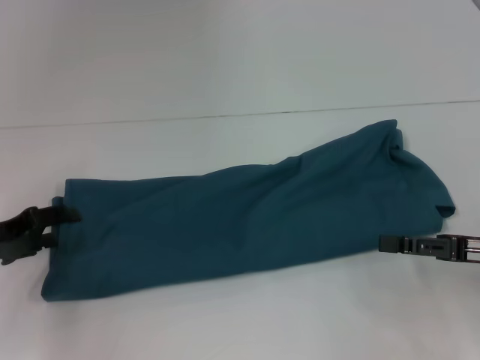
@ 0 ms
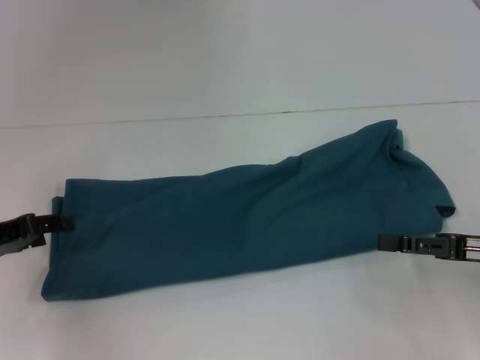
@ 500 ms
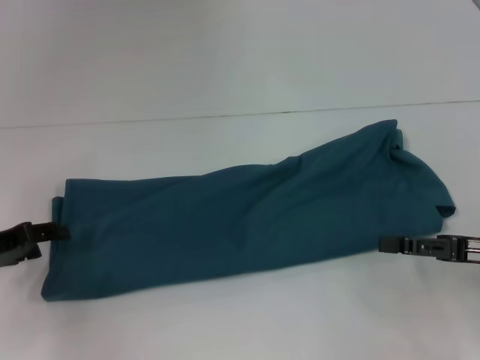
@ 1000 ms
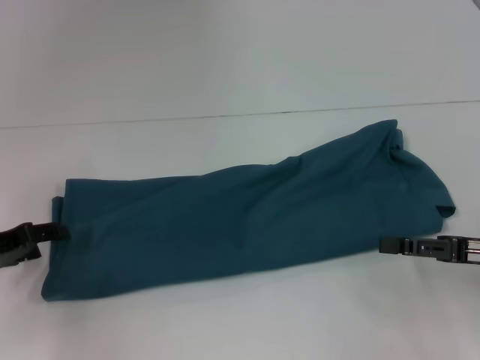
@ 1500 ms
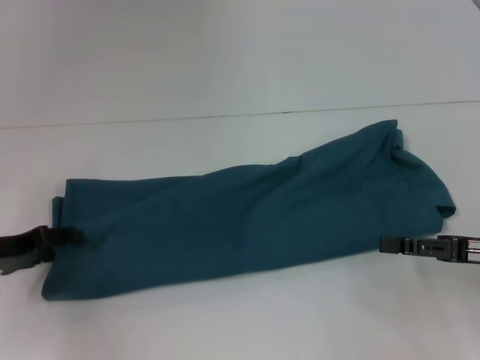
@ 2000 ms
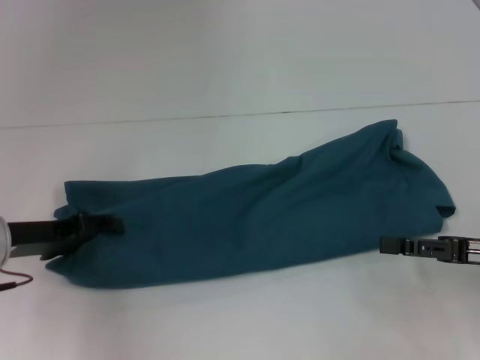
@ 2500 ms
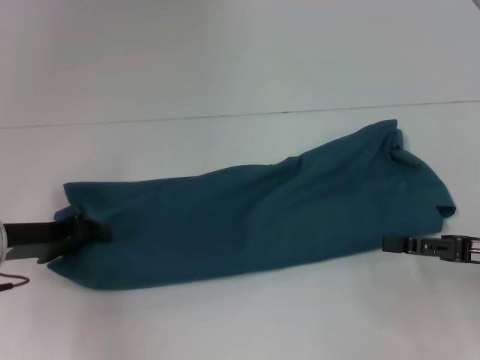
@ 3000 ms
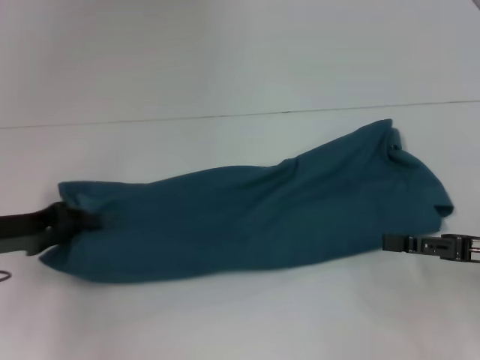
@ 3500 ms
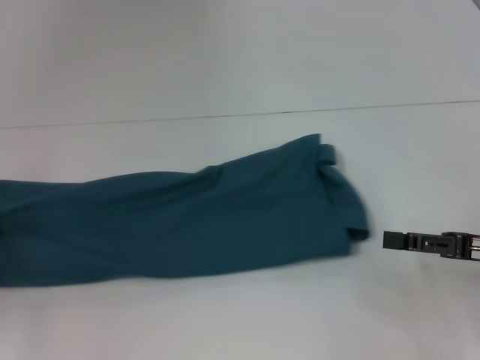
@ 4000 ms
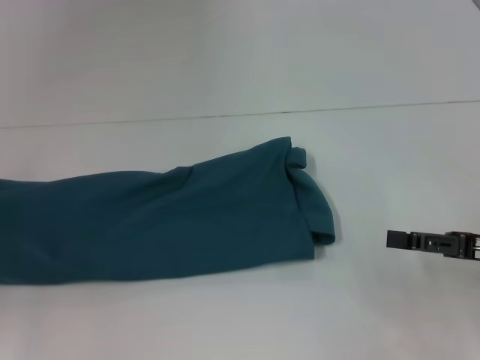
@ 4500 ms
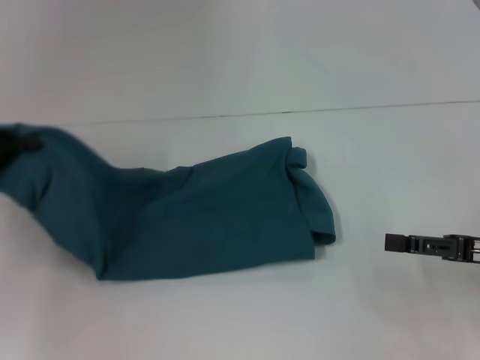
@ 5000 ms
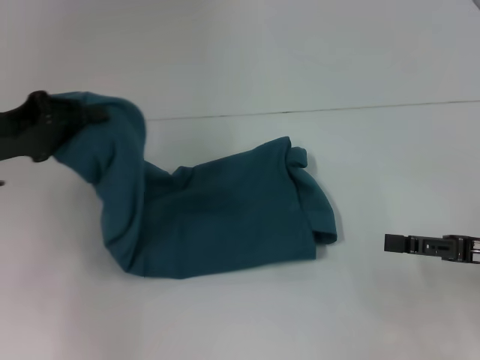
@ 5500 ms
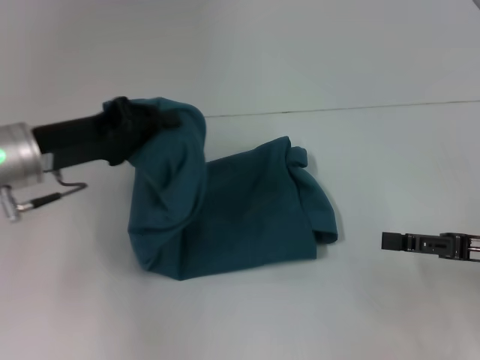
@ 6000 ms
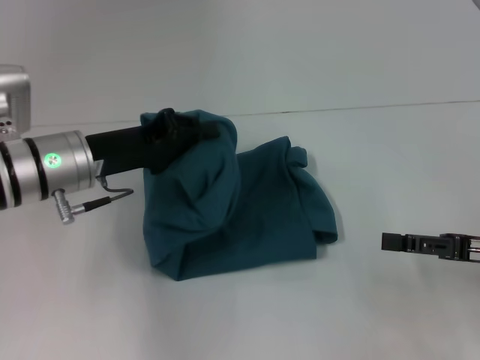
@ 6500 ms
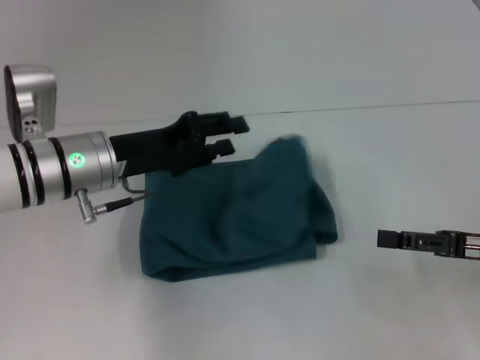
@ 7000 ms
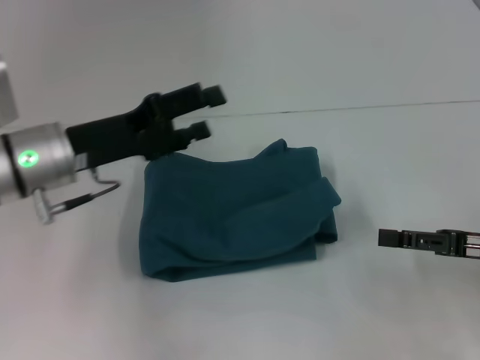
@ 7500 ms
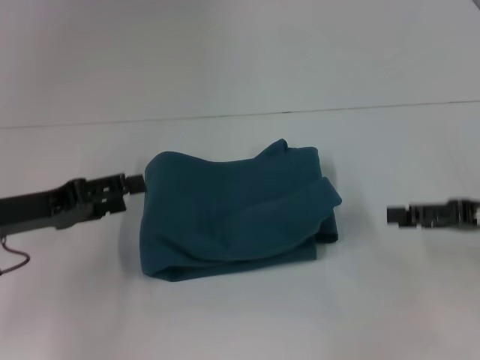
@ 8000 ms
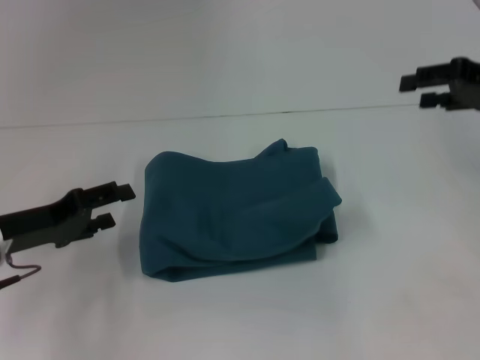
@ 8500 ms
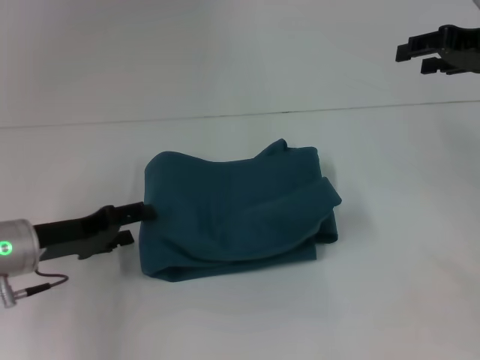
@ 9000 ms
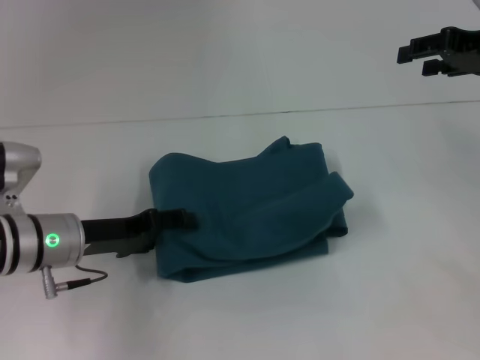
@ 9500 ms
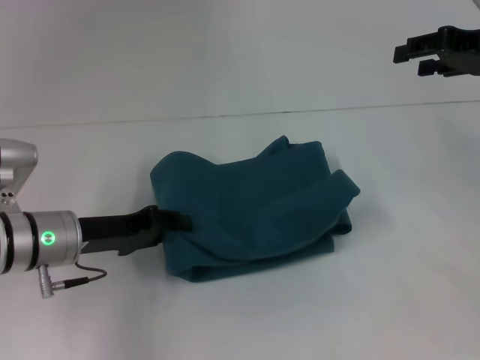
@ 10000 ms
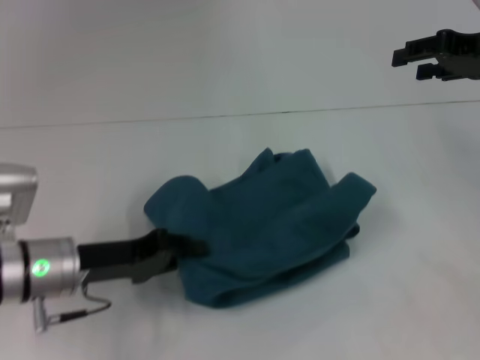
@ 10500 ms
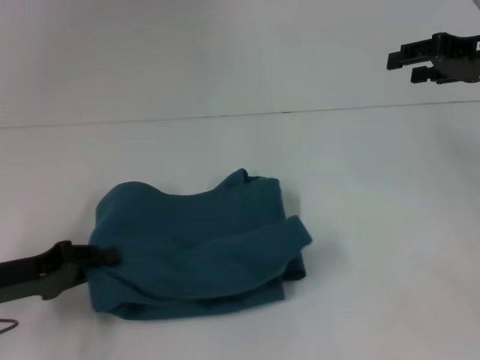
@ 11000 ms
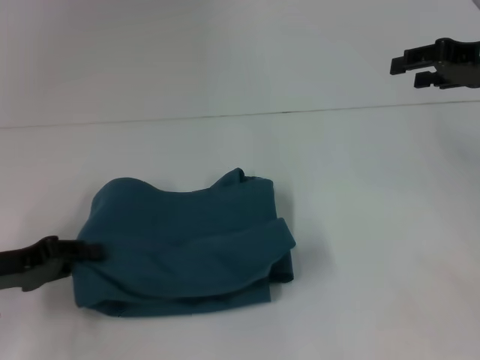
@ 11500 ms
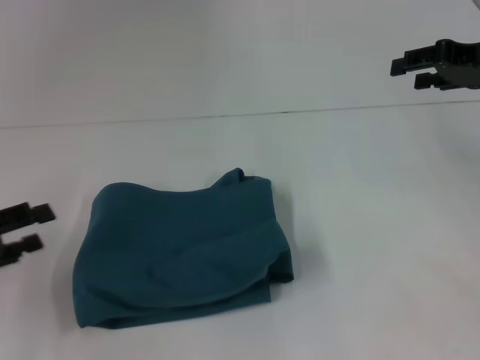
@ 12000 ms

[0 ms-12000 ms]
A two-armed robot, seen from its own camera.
Step, 0 ms to 7000 ms: Fold the clothes to the left.
0 ms to 2000 ms: There are only small adjustments of the grippers.
2000 ms to 4000 ms: The left gripper moves to the left, approximately 5 cm, and closes.
4000 ms to 6000 ms: The left gripper is displaced to the right and upward by approximately 15 cm.
6000 ms to 8000 ms: The left gripper goes approximately 5 cm to the left, and opens up; the right gripper changes place by approximately 5 cm.
8000 ms to 10000 ms: The left gripper goes approximately 5 cm to the right. The right gripper travels forward and upward by some 15 cm.
10000 ms to 12000 ms: The left gripper is displaced to the left and backward by some 15 cm, and closes and opens again.

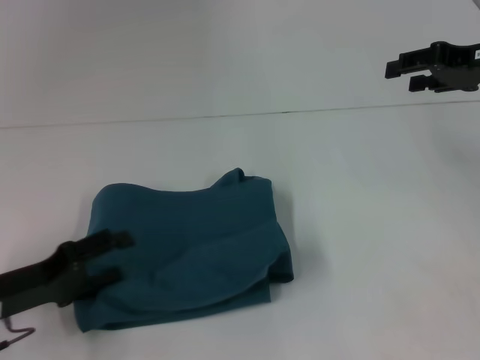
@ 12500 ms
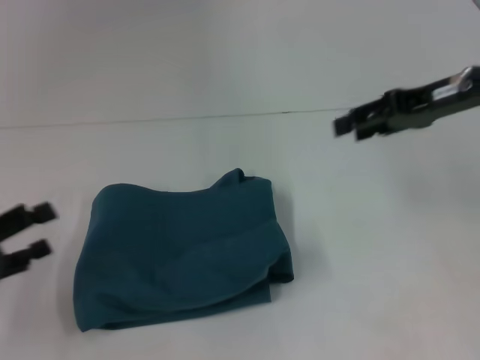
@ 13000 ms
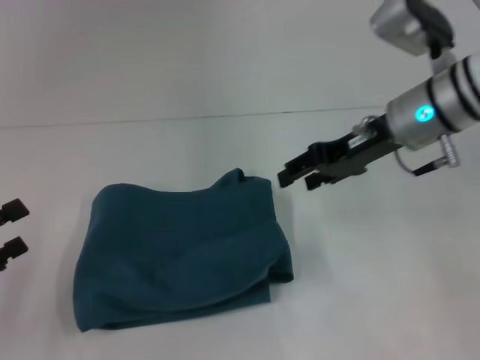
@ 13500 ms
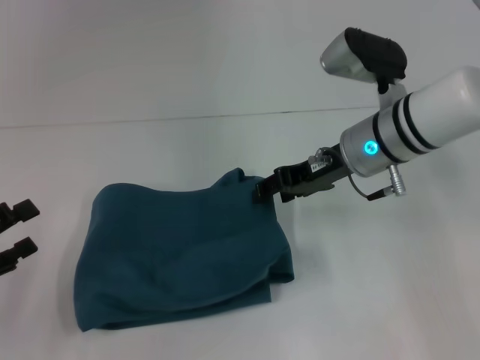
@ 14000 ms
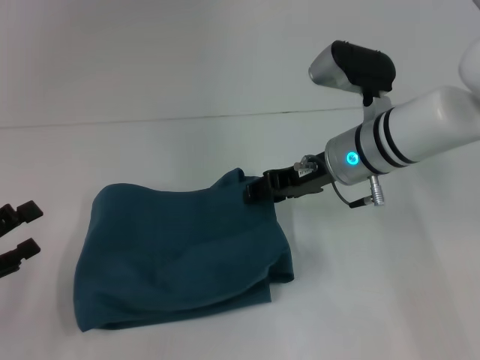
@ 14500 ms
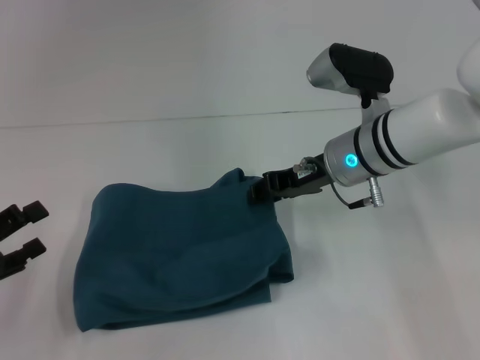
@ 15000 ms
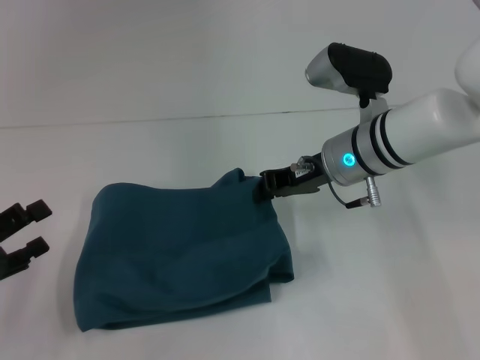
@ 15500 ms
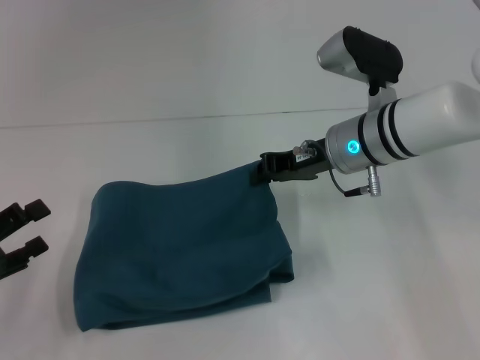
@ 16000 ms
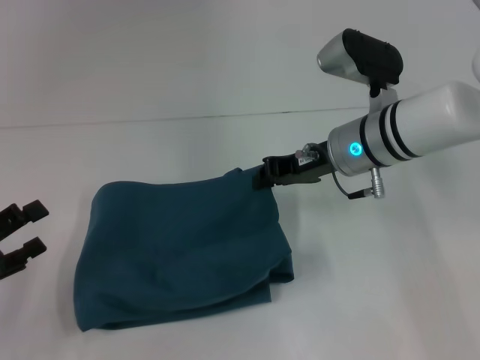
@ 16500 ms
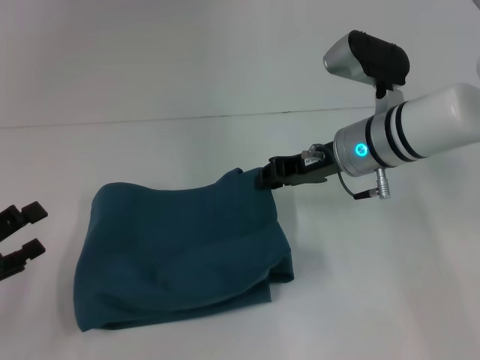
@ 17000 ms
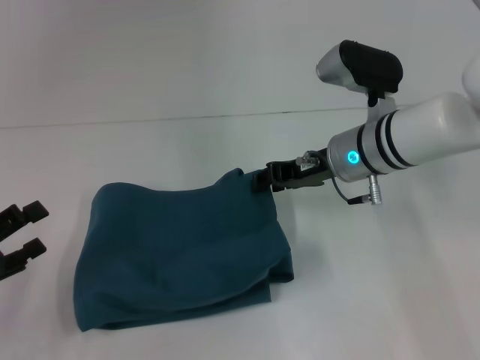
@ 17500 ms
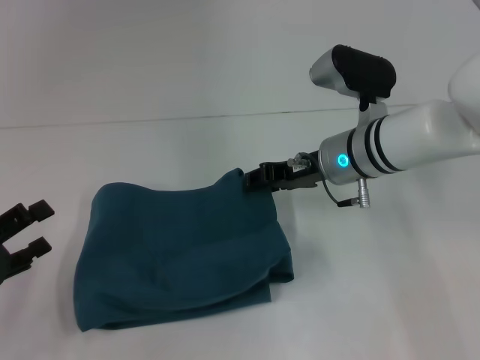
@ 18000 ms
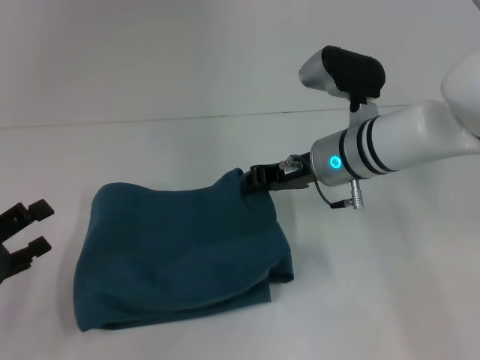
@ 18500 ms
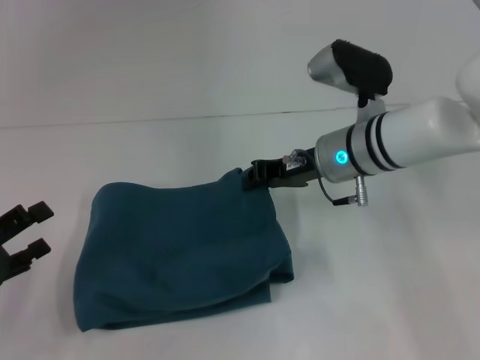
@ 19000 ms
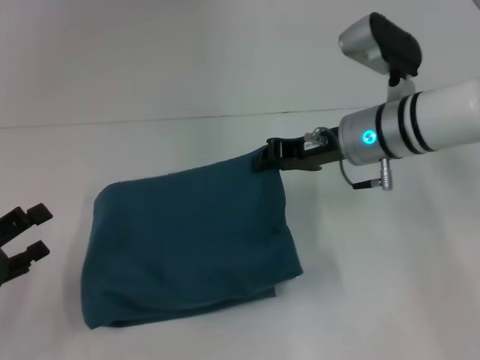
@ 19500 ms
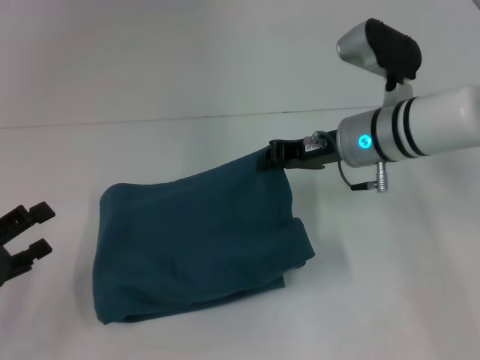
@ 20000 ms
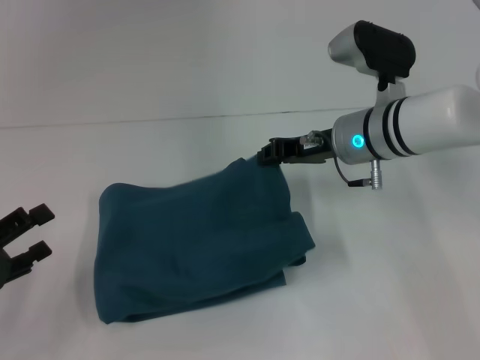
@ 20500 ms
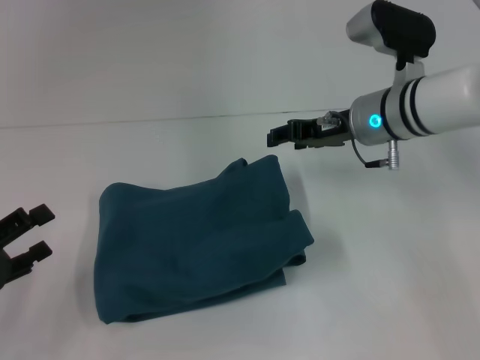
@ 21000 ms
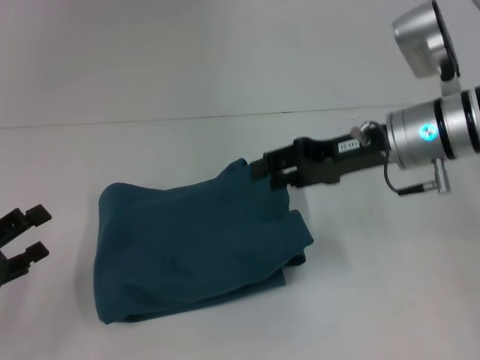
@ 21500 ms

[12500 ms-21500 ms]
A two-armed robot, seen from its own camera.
12500 ms to 14500 ms: The left gripper is displaced to the left by about 5 cm. The right gripper moves to the left and downward, approximately 20 cm.
14500 ms to 19500 ms: The grippers stay close to where they were, moving slightly.
19500 ms to 21500 ms: The right gripper opens its fingers.

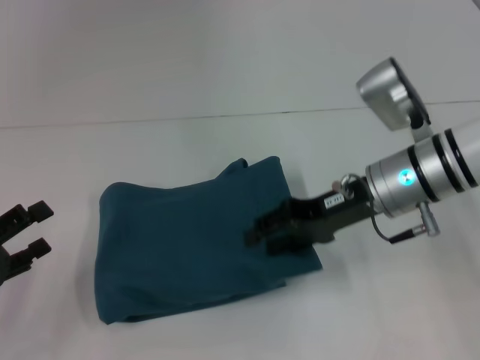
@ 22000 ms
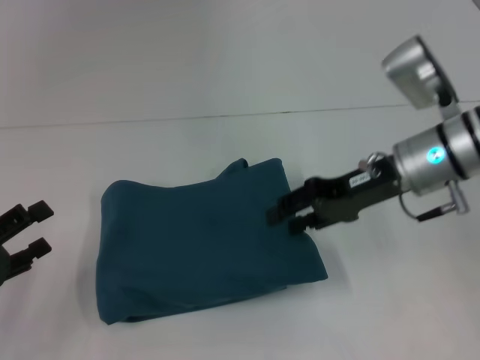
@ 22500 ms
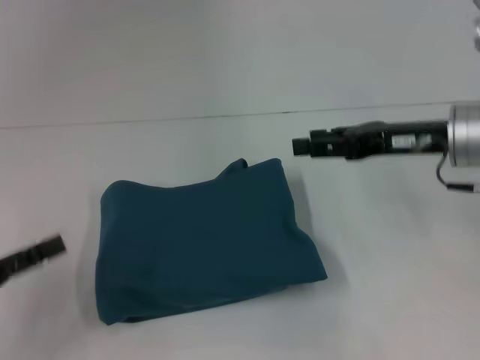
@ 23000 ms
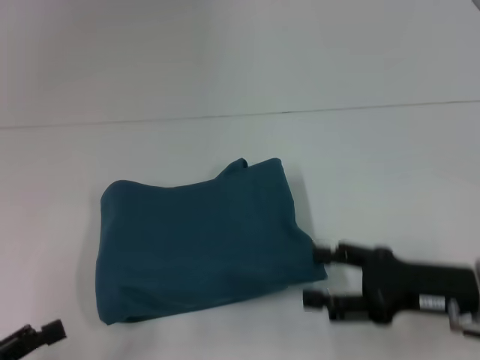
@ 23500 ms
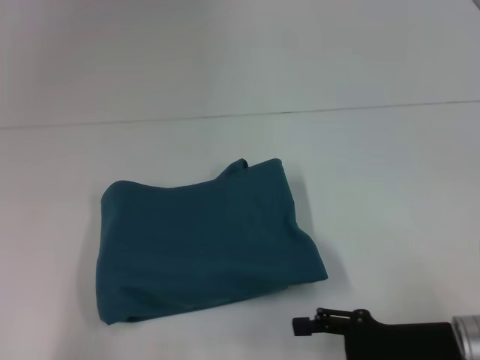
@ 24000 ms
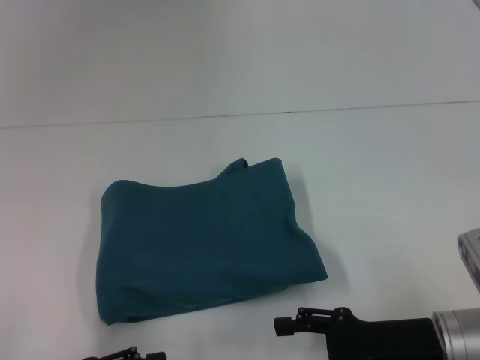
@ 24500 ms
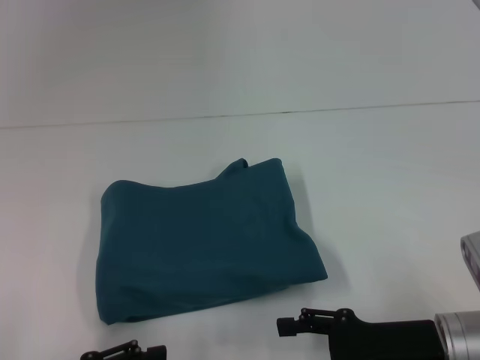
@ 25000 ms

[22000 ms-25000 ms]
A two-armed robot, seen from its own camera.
22000 ms to 23500 ms: The left gripper travels backward by about 10 cm. Meanwhile the right gripper heads backward and to the right, covering approximately 15 cm.
23500 ms to 25000 ms: The left gripper shifts roughly 5 cm to the right; the right gripper shifts by approximately 5 cm.

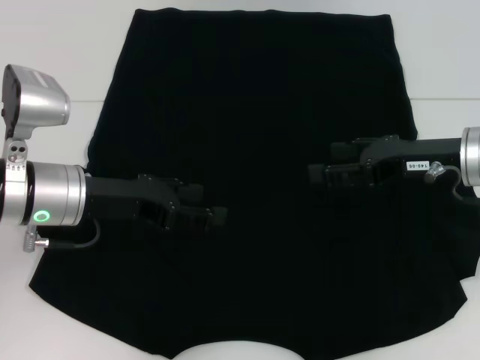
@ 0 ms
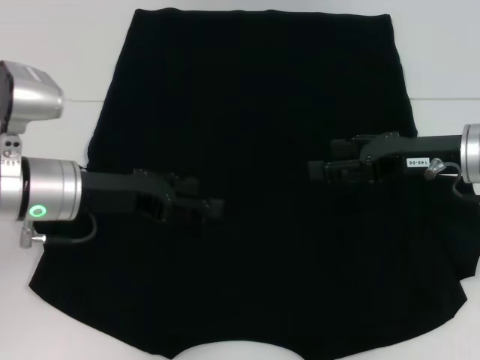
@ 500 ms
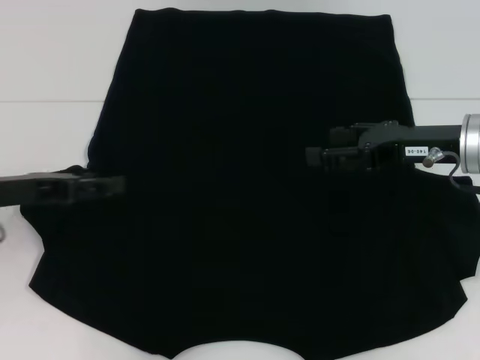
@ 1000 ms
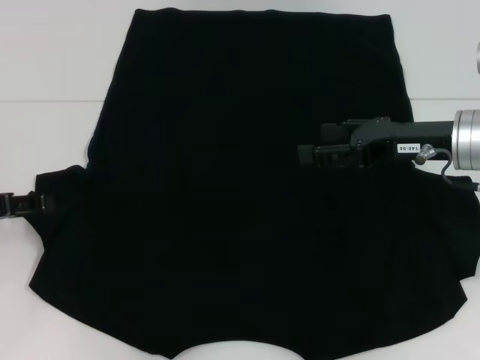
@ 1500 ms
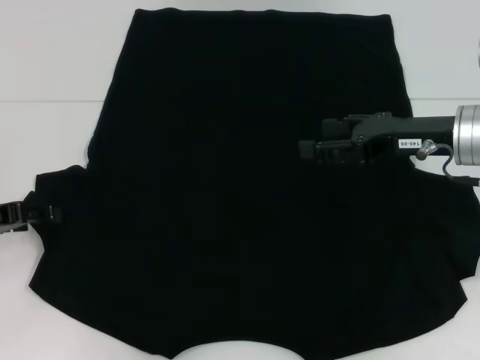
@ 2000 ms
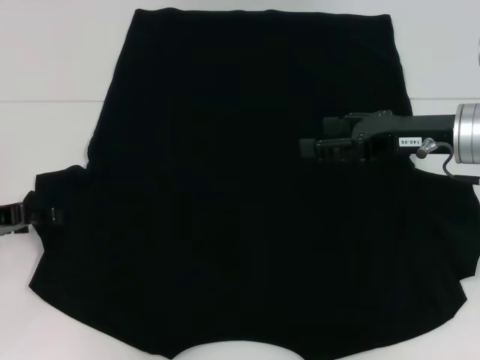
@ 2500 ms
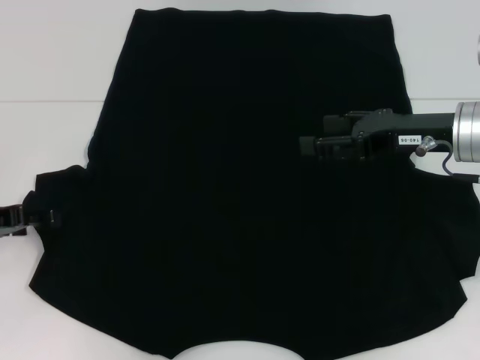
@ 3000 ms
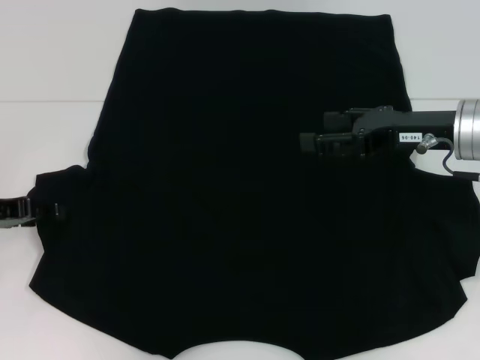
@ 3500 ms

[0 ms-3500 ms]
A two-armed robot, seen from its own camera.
0 ms to 2000 ms: The left gripper goes about 15 cm to the left.
2000 ms to 3500 ms: The grippers stay close to where they were, moving slightly.
